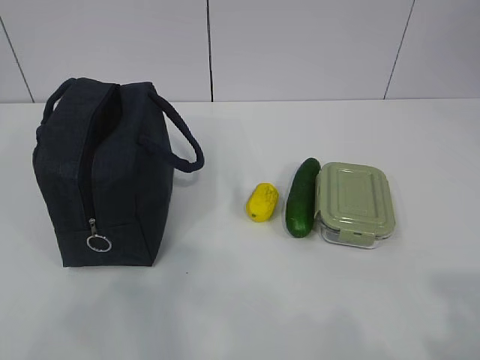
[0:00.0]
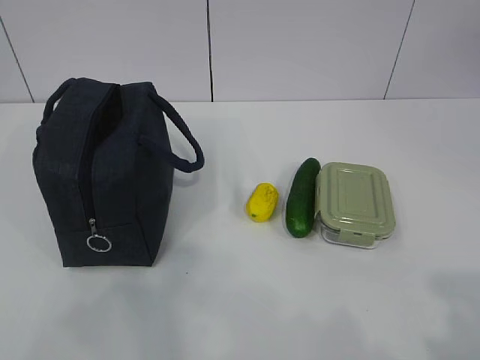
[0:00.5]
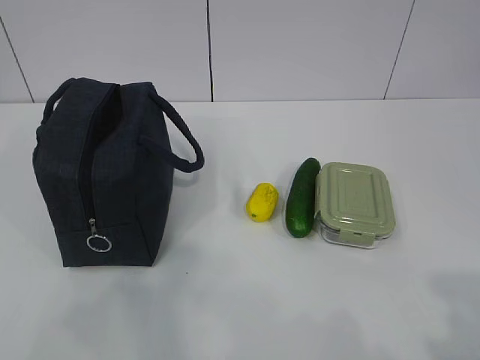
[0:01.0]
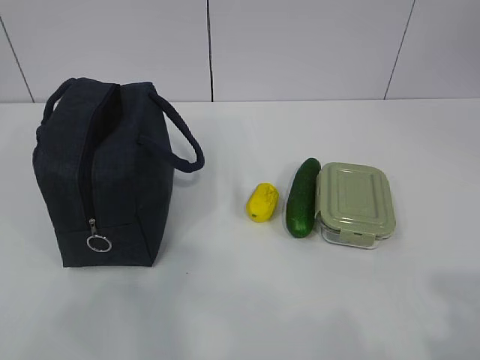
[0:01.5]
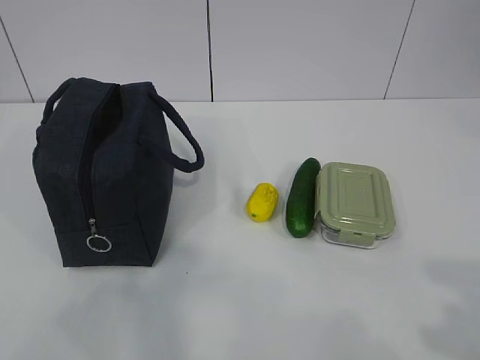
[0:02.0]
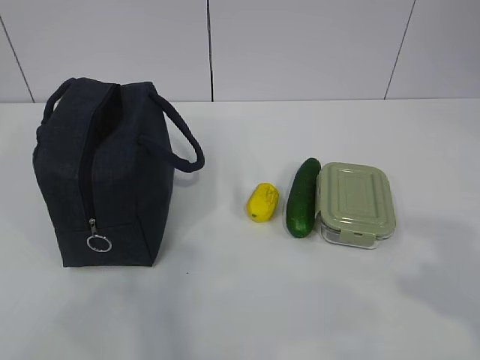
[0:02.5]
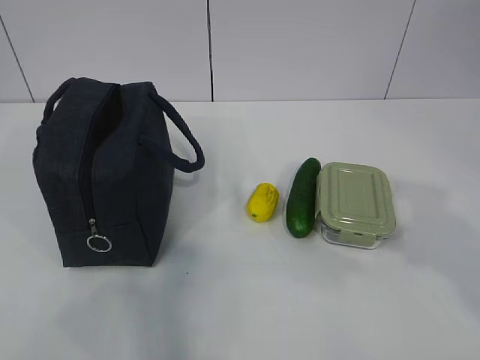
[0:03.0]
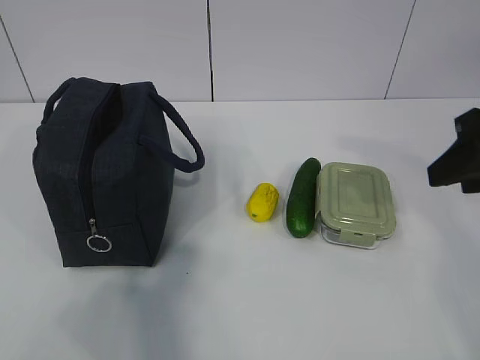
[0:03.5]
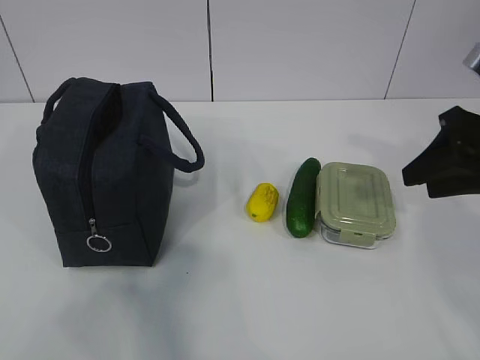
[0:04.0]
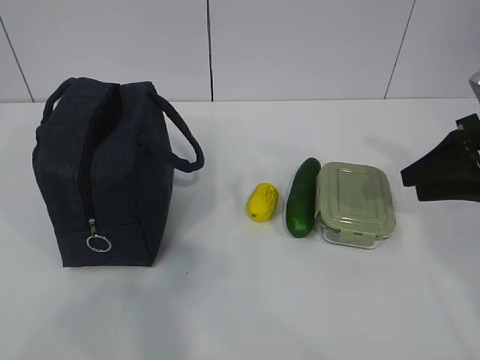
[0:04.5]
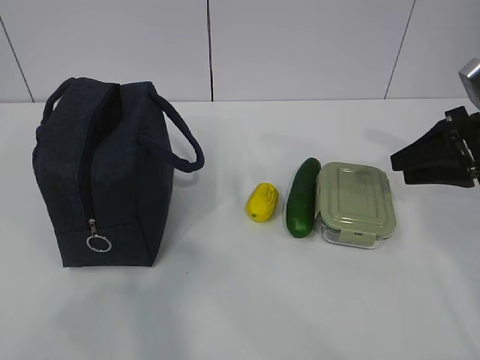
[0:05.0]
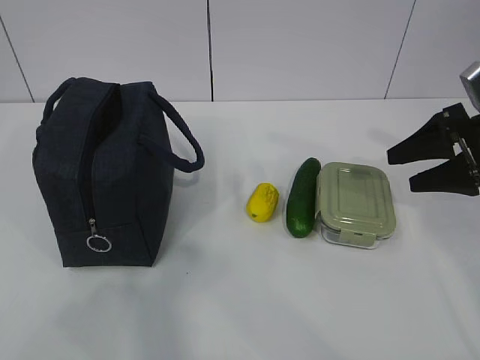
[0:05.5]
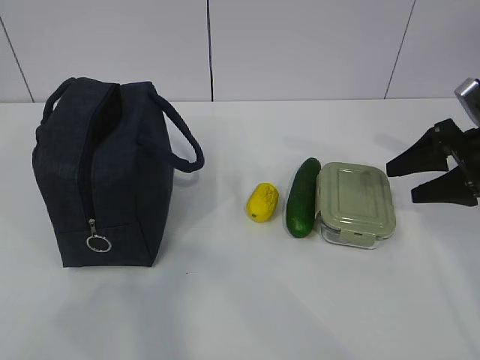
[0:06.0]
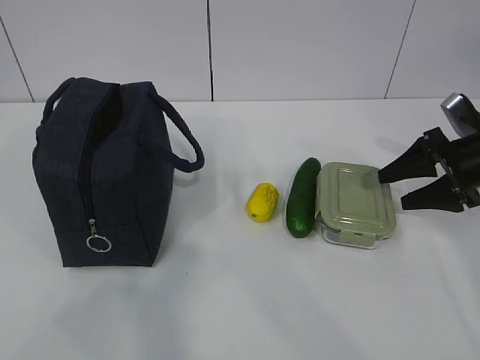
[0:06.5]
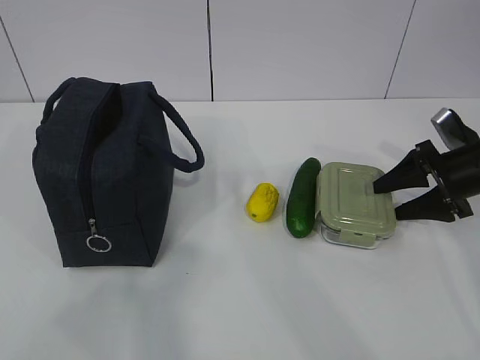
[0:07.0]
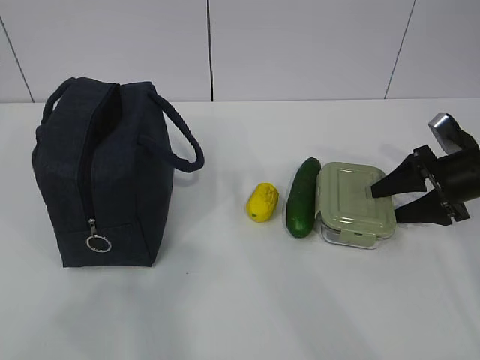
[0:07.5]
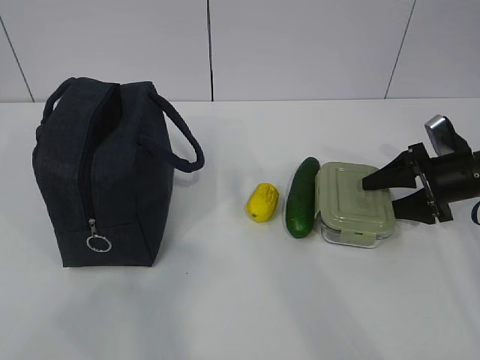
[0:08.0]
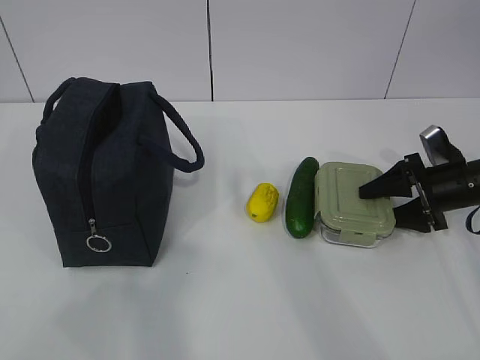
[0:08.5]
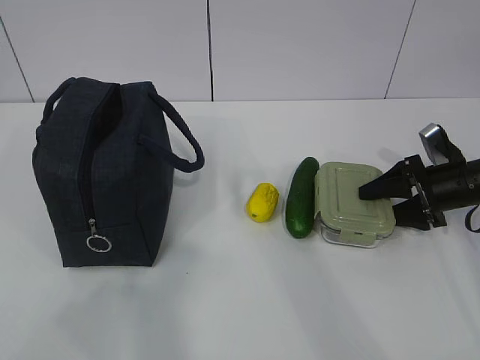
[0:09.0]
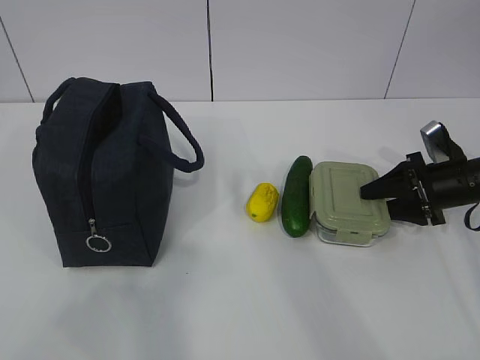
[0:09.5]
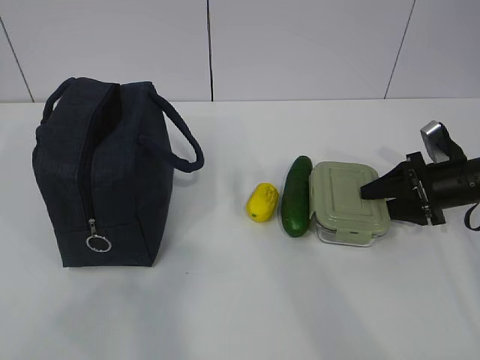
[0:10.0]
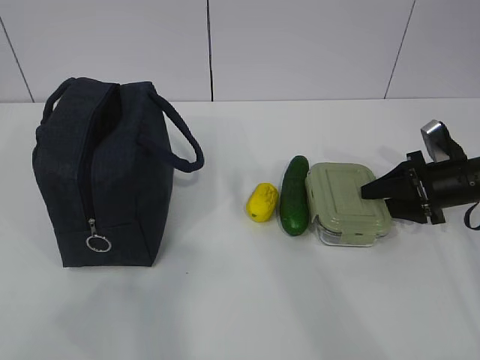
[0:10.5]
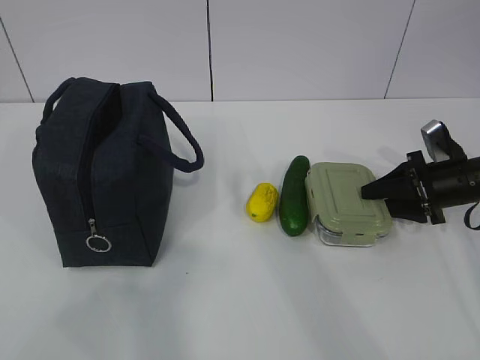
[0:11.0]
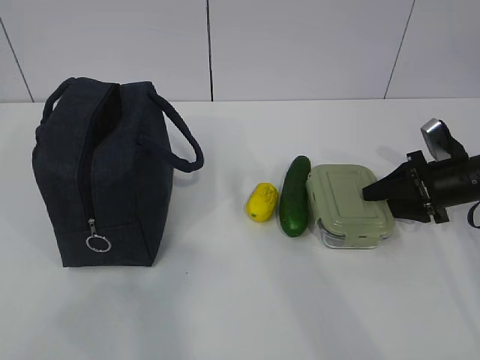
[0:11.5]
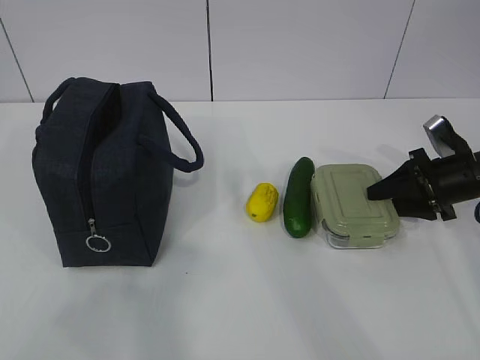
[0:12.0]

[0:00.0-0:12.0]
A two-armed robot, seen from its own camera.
Step, 0:00.0 to 0:09.0: Grab the lunch box with your right hand.
0:02.0 to 0:04.0: The right gripper moves forward, roughly 30 cm.
0:04.0 to 0:06.0: The right gripper shifts about 10 cm downward, forward and to the right, and opens up.
0:06.0 to 0:08.0: The right gripper is displaced downward by about 10 cm.
0:08.0 to 0:10.0: The grippers make only small movements.
0:10.0 to 0:12.0: Both grippers stay about where they are.

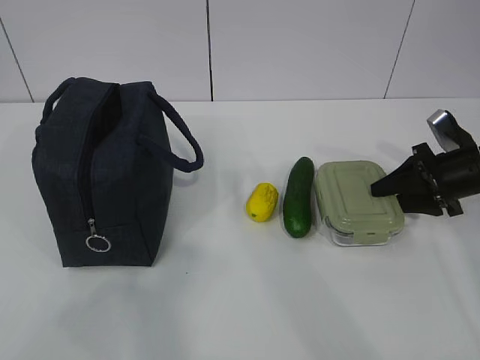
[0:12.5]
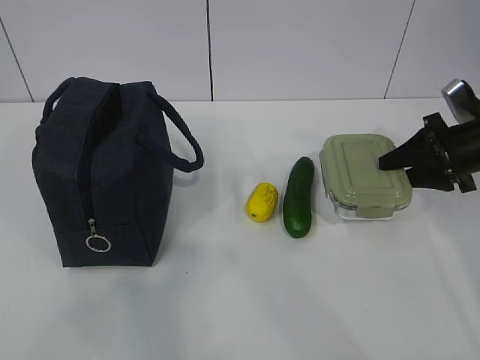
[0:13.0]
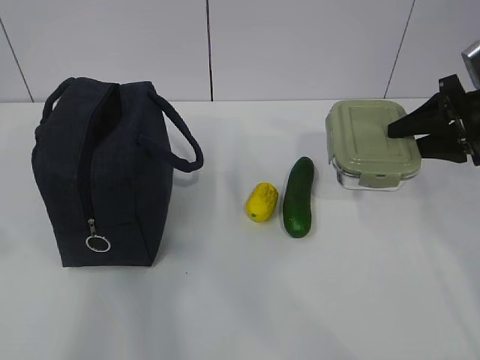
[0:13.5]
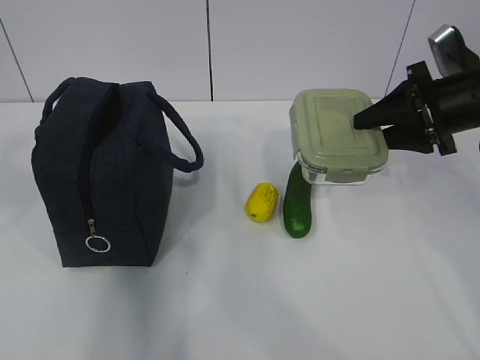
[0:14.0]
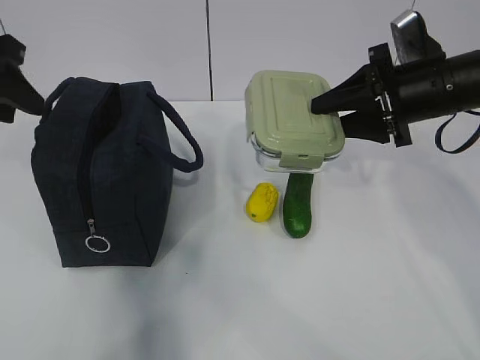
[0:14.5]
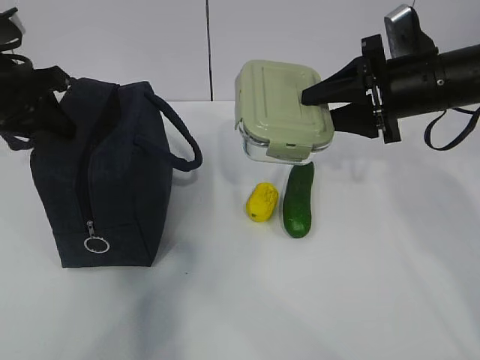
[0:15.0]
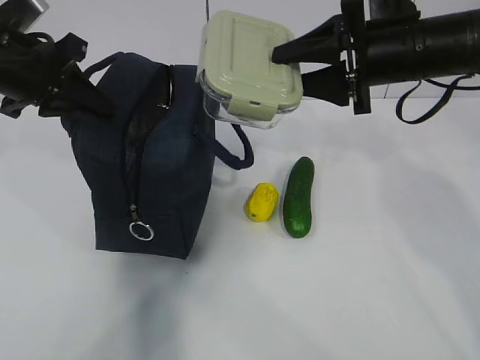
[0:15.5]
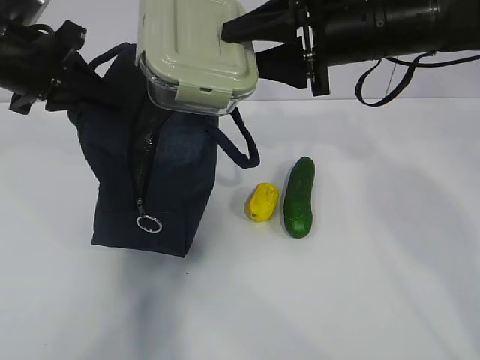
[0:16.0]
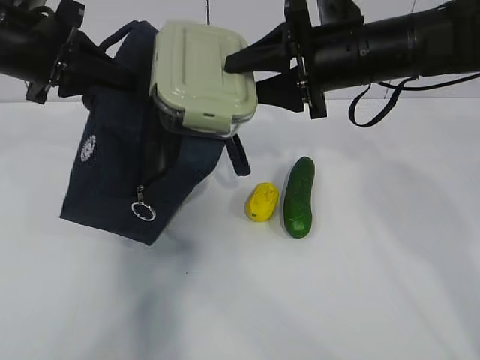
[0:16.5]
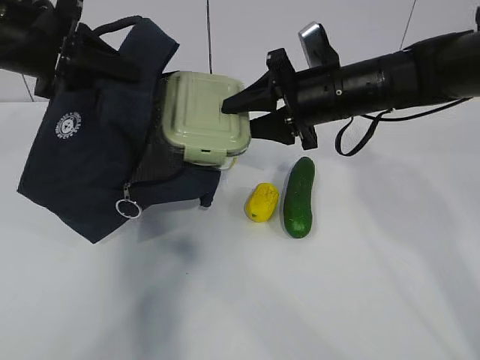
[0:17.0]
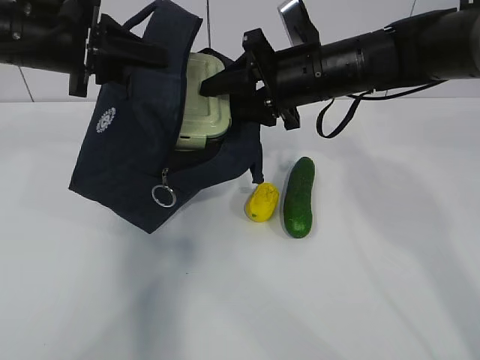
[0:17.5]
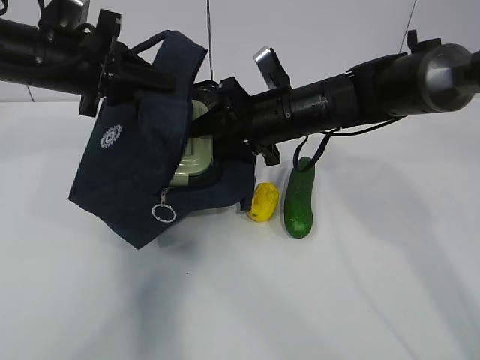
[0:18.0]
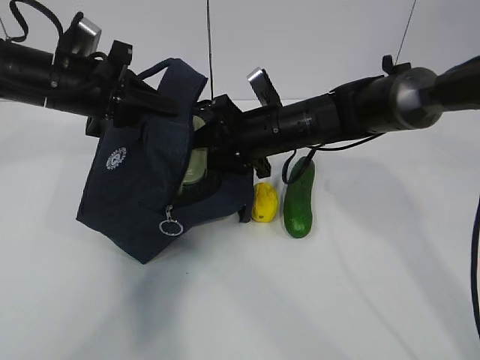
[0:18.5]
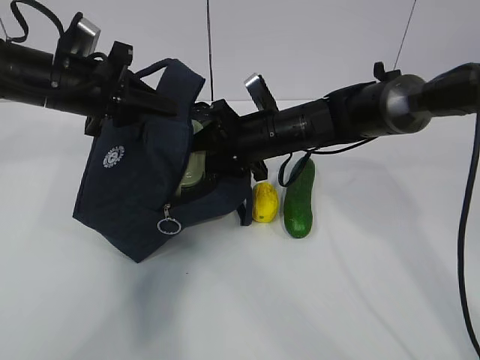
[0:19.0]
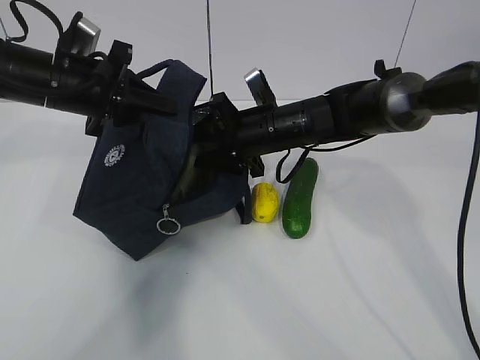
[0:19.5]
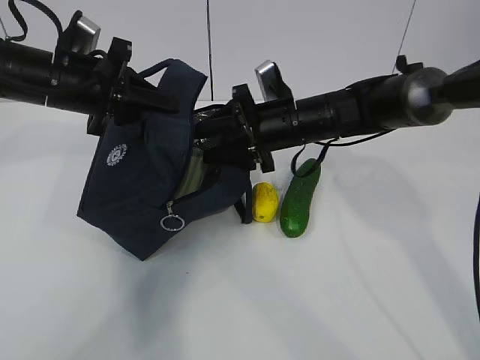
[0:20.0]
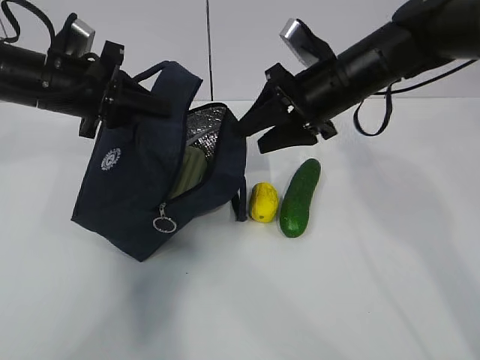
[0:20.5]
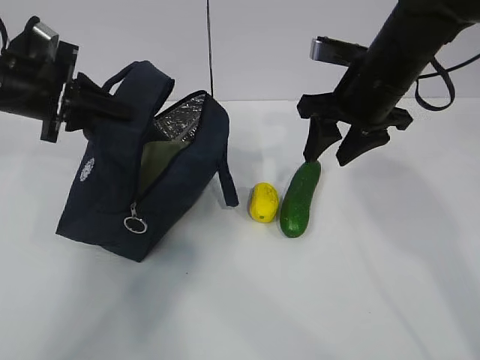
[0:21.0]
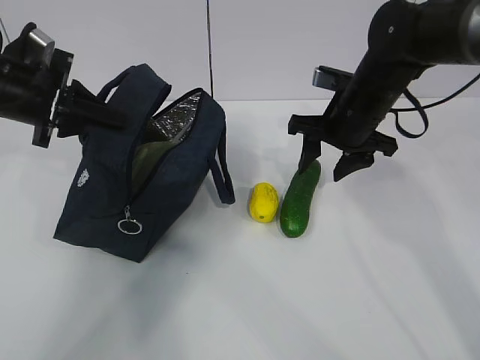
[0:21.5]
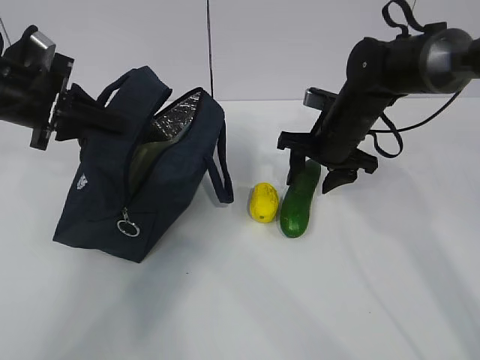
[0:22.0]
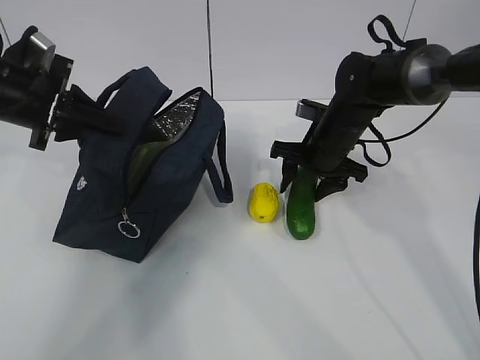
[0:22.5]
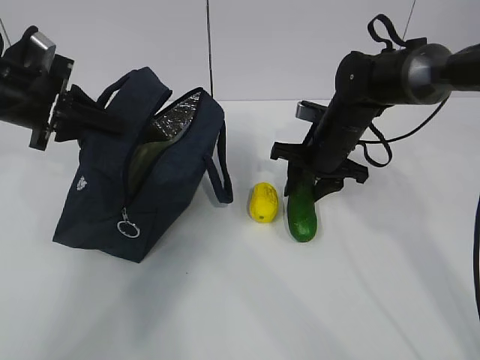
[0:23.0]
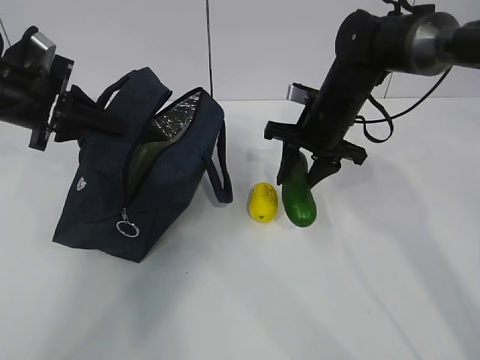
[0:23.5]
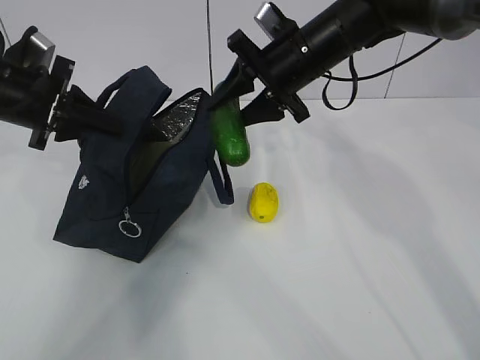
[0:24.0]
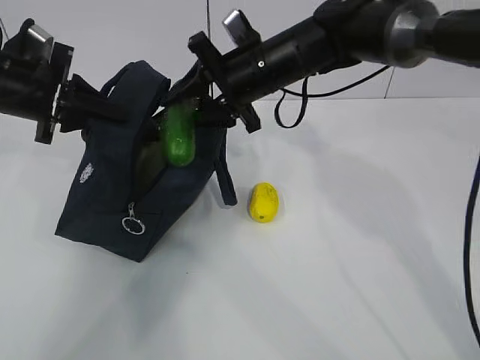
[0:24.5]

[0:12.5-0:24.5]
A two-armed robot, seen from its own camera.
Step, 0:14.0 to 0:16.0: Place it into the bag with your right hand.
Step, 0:16.5 to 0:19.0: Grab the cucumber with your right hand.
Step, 0:19.5 to 0:21.0: Place it into the bag with your right hand.
0:12.5 to 0:14.5: The left gripper goes approximately 30 cm forward, while the right gripper goes about 15 cm upward and to the left.
0:14.5 to 0:16.5: The left gripper heads to the right, covering approximately 5 cm, and closes. The right gripper heads to the left, covering about 10 cm.
0:16.5 to 0:18.5: The right gripper moves downward and to the left, roughly 15 cm. The left gripper goes approximately 5 cm downward.
0:18.5 to 0:20.5: The right gripper goes some 10 cm upward and to the right.
0:20.5 to 0:22.5: The left gripper goes about 5 cm to the left. Meanwhile the right gripper heads downward, covering approximately 10 cm.
0:22.5 to 0:24.5: The right gripper shifts roughly 15 cm upward and to the left.

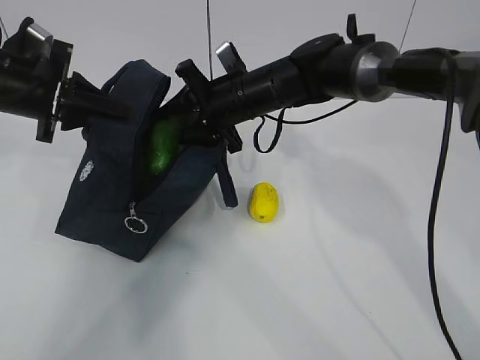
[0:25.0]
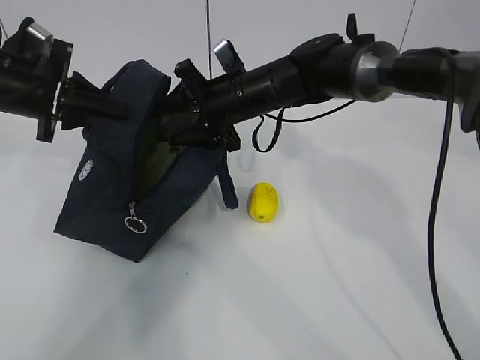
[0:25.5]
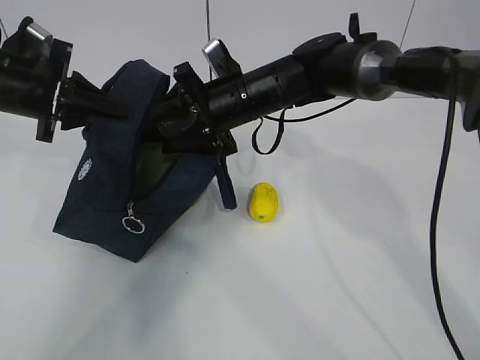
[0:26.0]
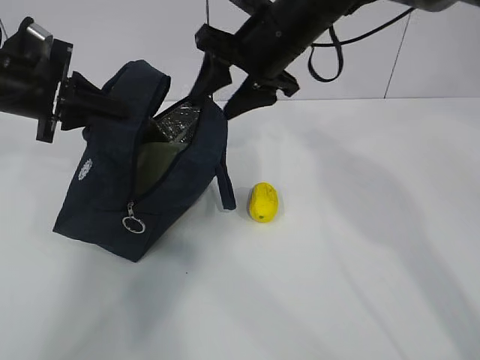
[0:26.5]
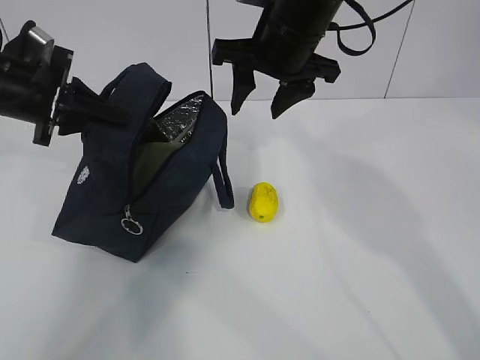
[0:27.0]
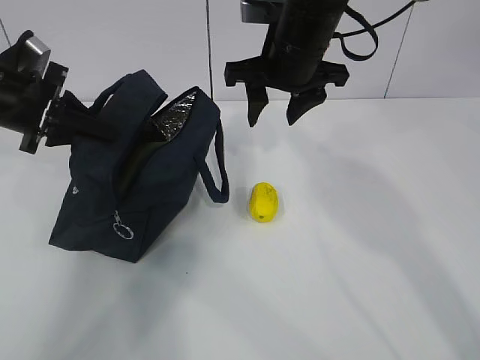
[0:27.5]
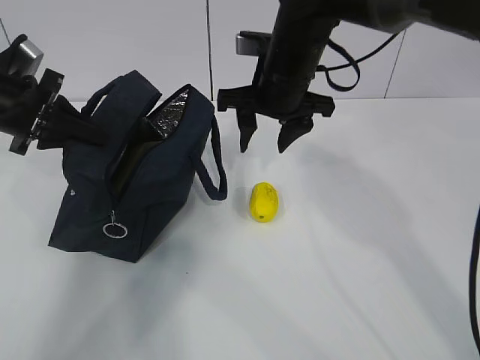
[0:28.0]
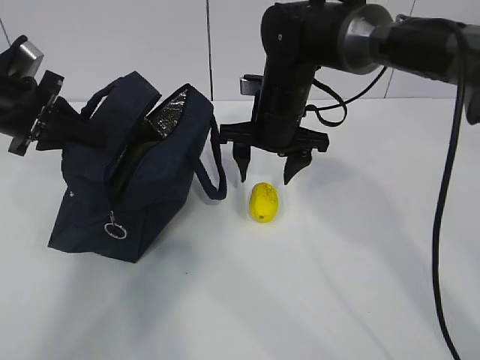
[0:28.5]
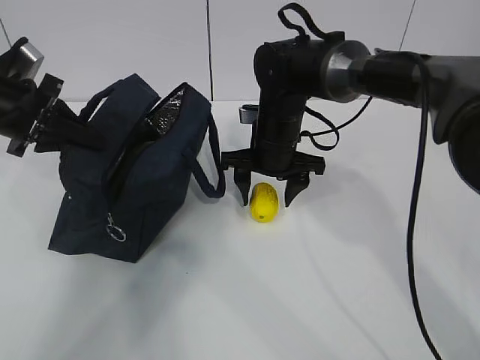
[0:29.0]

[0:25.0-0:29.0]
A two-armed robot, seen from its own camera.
Step, 0:27.5 to 0:29.0: Grab the lunch bag with your right hand.
0:25.0 to 0:27.0: The right gripper shifts roughly 10 cm upward and backward.
0:27.0 to 0:29.0: The right gripper is displaced downward by some 15 cm.
